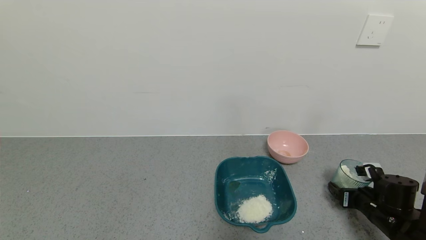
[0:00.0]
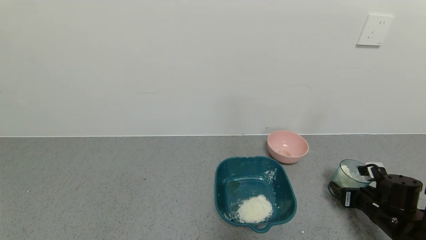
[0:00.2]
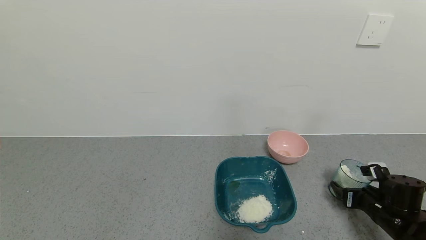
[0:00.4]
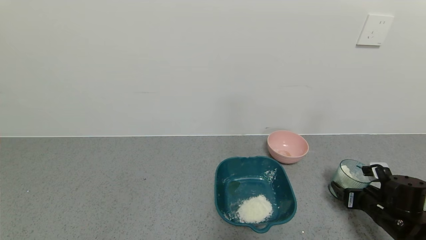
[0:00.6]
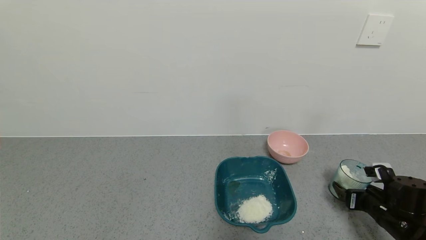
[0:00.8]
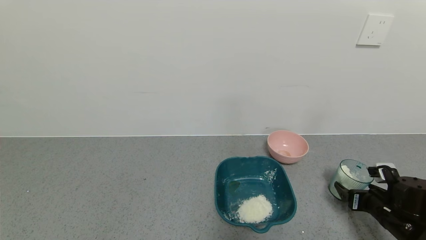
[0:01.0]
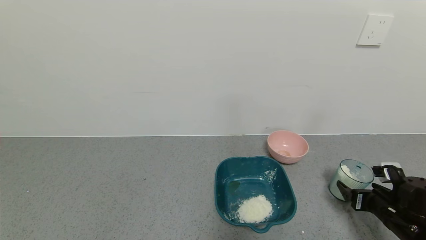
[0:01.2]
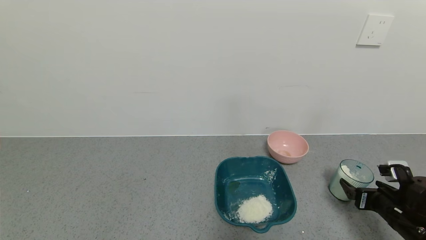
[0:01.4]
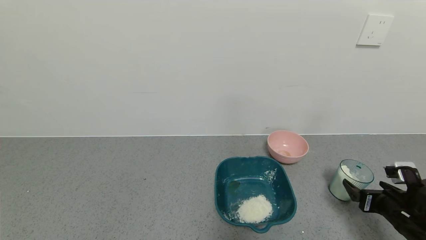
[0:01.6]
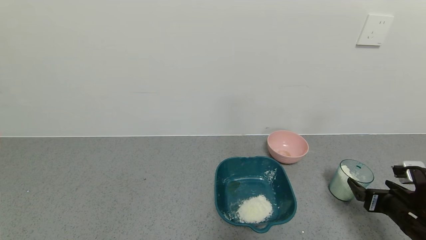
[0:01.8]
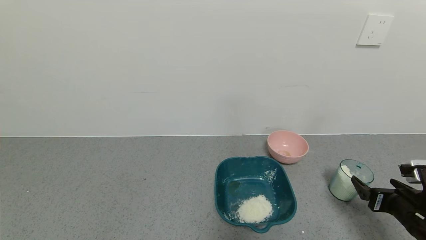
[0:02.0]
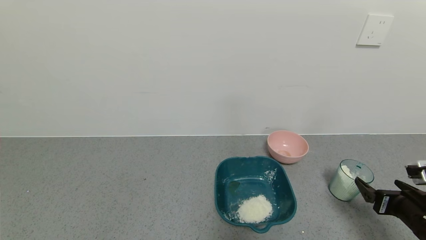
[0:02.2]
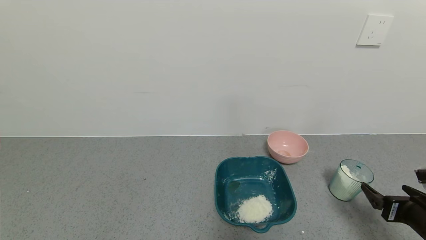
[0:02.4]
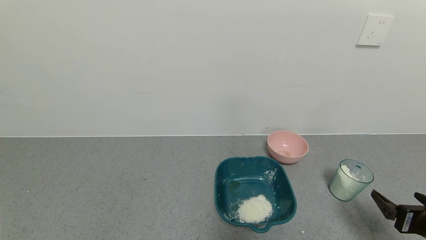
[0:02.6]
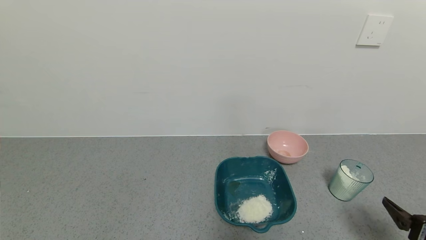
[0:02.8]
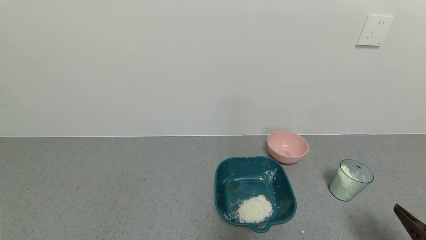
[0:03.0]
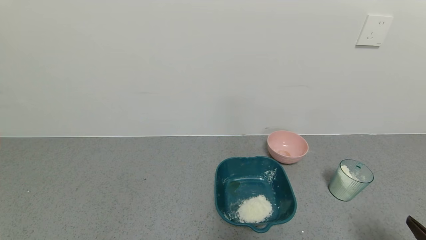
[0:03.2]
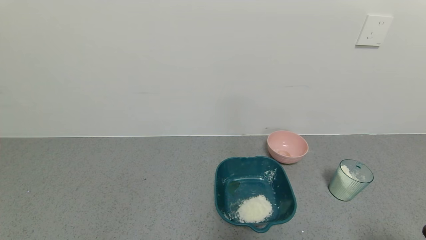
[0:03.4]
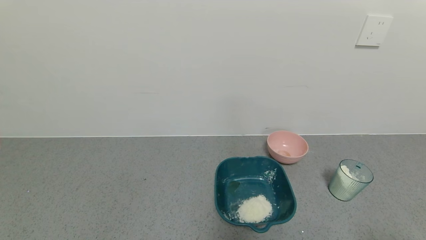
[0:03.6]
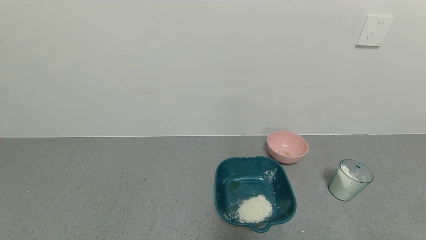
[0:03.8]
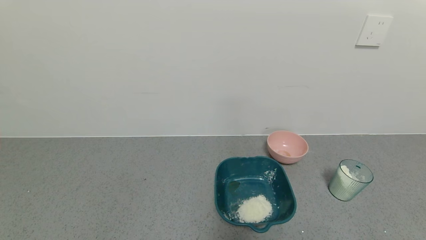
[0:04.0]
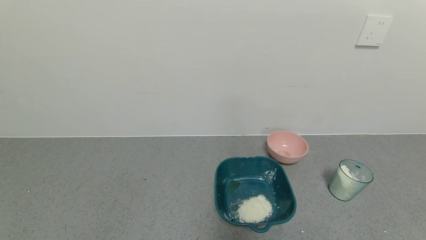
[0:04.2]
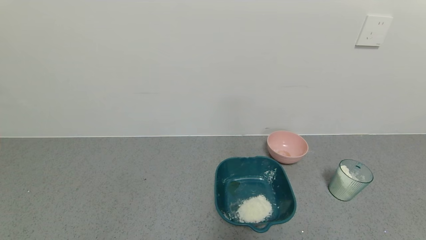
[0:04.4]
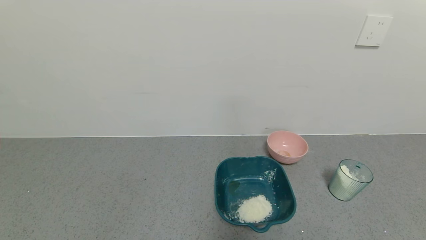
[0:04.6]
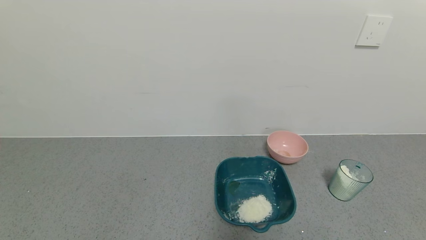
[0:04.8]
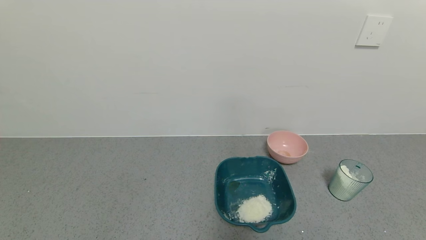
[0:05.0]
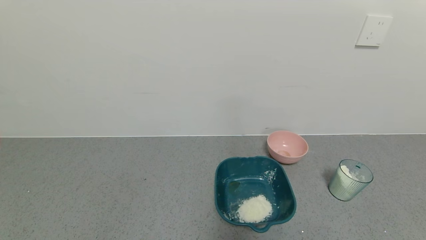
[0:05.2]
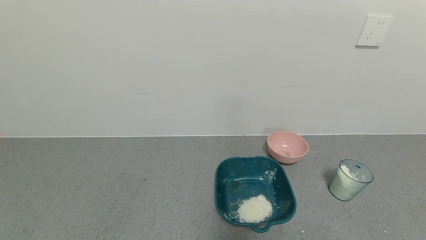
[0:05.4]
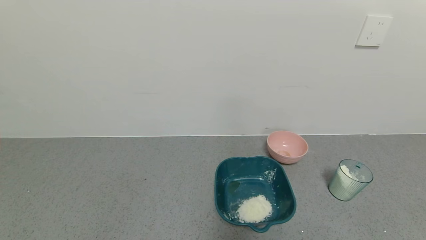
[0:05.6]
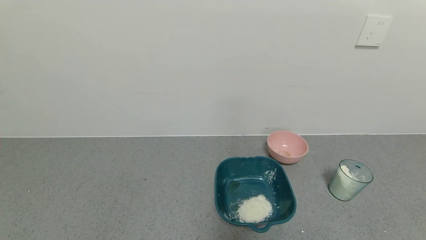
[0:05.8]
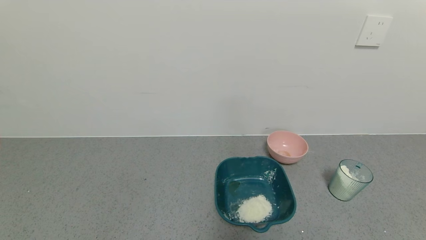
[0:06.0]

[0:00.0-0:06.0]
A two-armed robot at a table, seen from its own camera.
Task of the whole recording: use a gripper to pick up the cup and pour the powder into a bowl or tray.
0:00.0 to 0:01.6: The right gripper heads backward, covering some 5 cm, and opens its fingers.
0:01.6 to 0:03.0: The right gripper is displaced backward and upward by roughly 15 cm.
0:03.0 to 0:04.4: The right gripper moves backward, roughly 15 cm.
